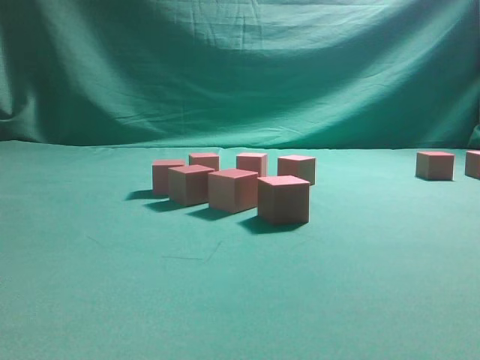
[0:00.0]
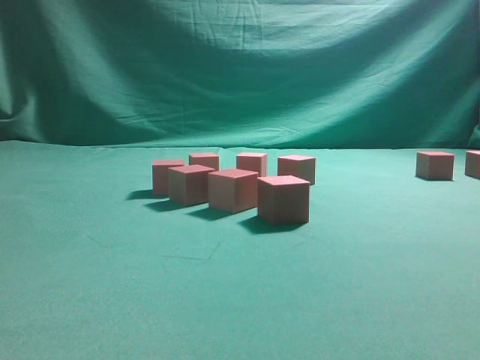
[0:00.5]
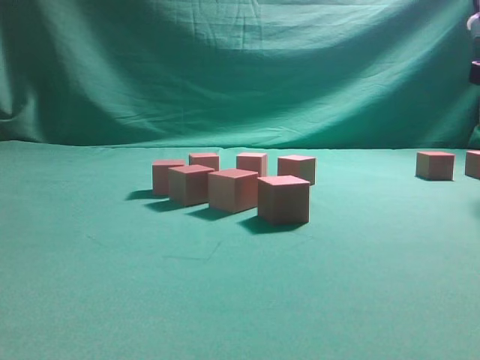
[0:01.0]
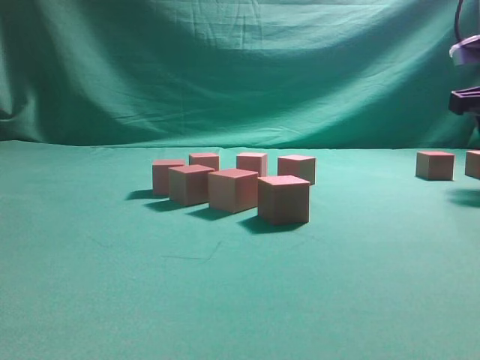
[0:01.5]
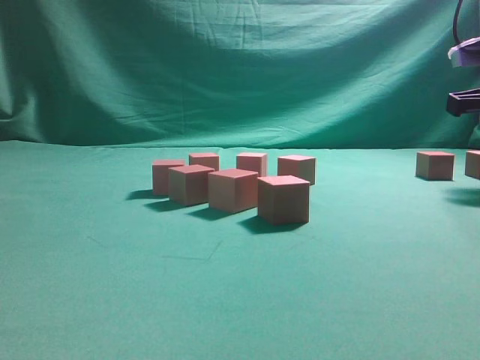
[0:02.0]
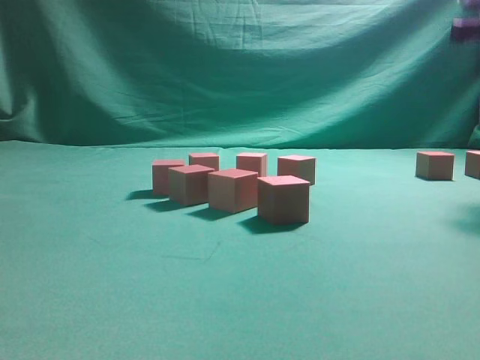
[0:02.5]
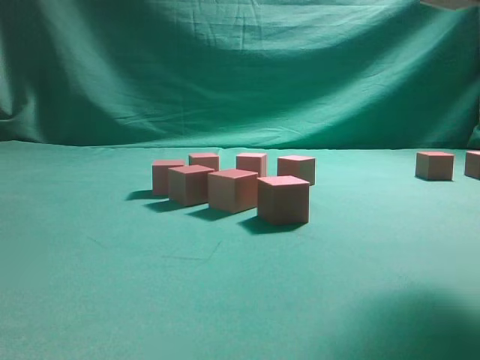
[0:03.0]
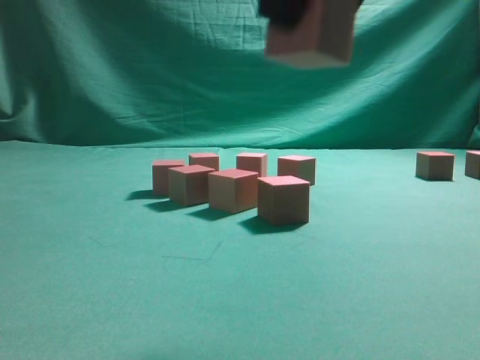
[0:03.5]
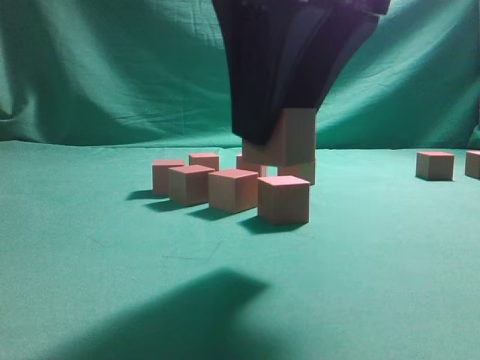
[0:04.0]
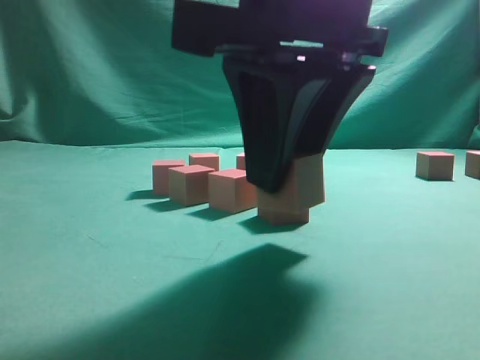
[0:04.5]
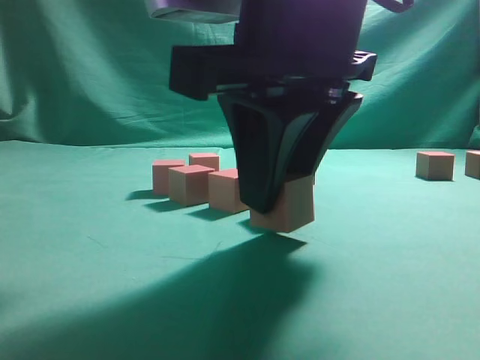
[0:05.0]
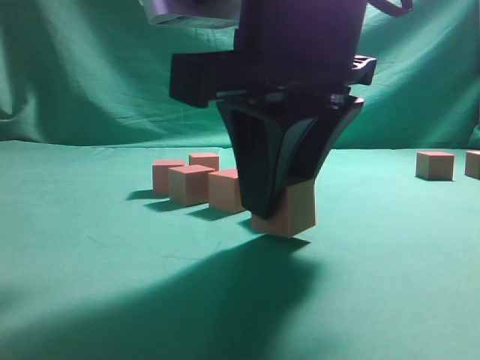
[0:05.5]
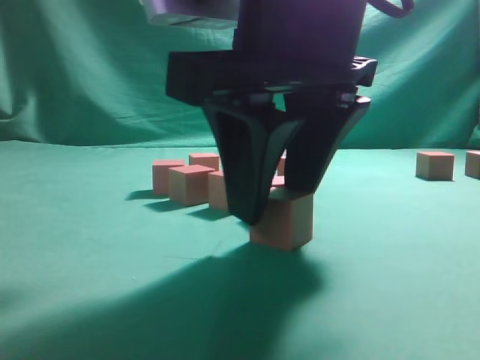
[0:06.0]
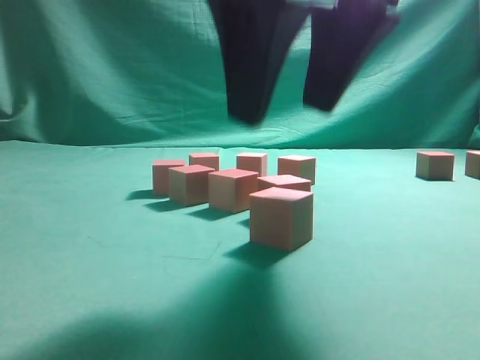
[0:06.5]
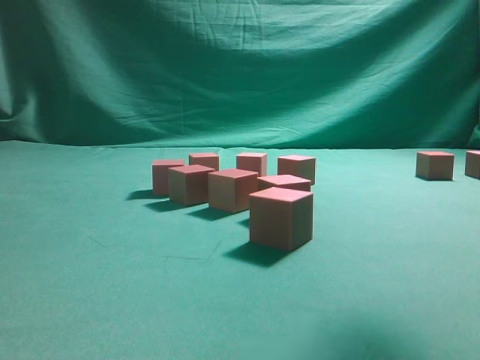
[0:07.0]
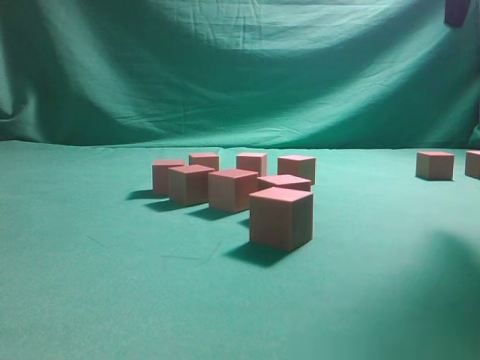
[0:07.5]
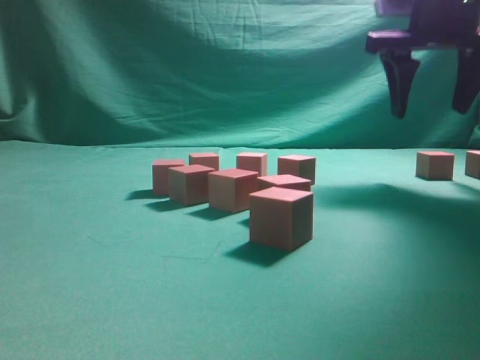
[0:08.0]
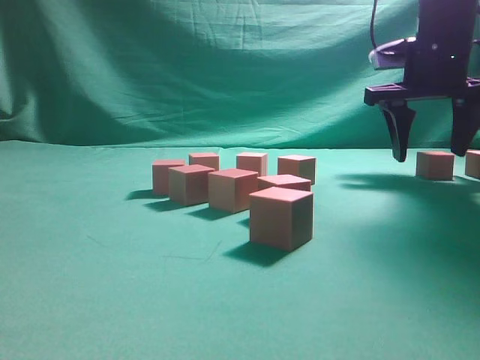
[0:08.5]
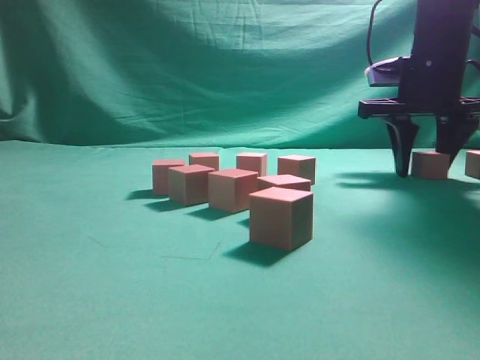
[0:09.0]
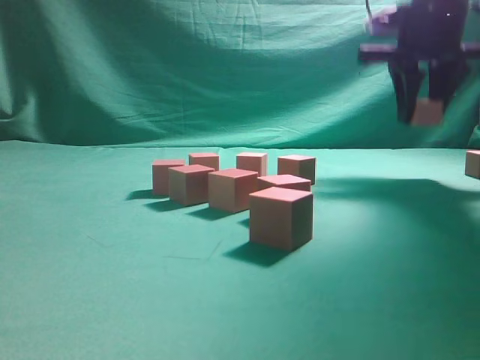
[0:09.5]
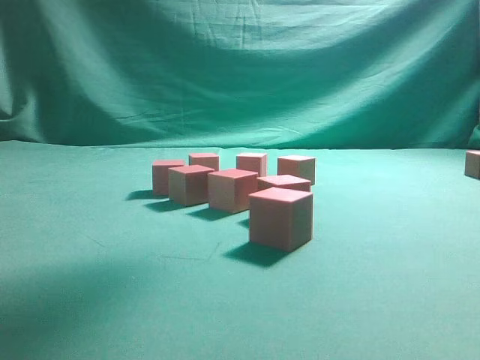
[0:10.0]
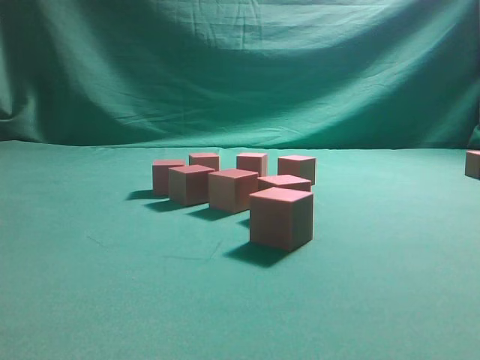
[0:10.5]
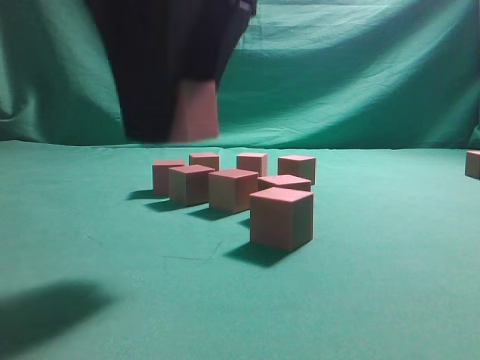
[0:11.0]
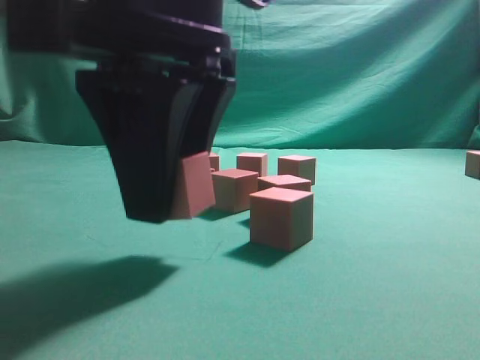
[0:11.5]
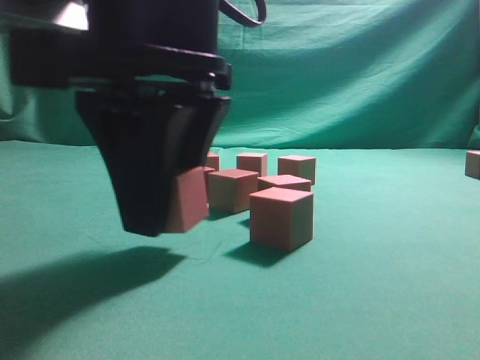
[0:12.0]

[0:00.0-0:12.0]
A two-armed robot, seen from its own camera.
Task of the whole recording: pick up the multiple cubes in two columns one by one and place them in another position on the table.
Step, 0:00.0 to 0:02.0: Pick up the block on the table.
Step, 0:02.5 to 0:06.0: Place the block at the correct position to assemble the letter S.
Step, 0:06.5 to 0:09.0: Pick up the block on the table.
0:00.0 to 0:02.0: The right gripper heads downward and forward, covering about 20 cm.
0:02.0 to 0:04.0: The right gripper is displaced to the left and backward by some 30 cm.
0:04.0 to 0:06.0: The right gripper ends up approximately 5 cm from where it was.
0:06.0 to 0:08.0: The right gripper shifts about 25 cm forward and to the right.
0:08.0 to 0:10.0: The right gripper travels upward, to the left and backward by roughly 20 cm, and closes up.
0:10.0 to 0:12.0: The right gripper shifts about 25 cm downward, to the left and backward.

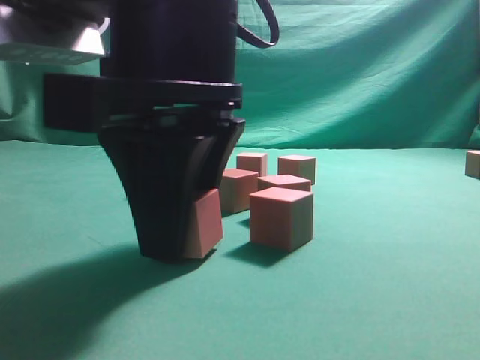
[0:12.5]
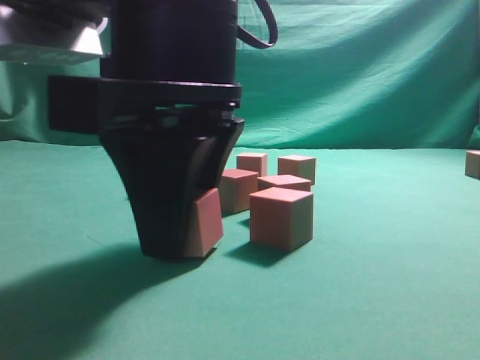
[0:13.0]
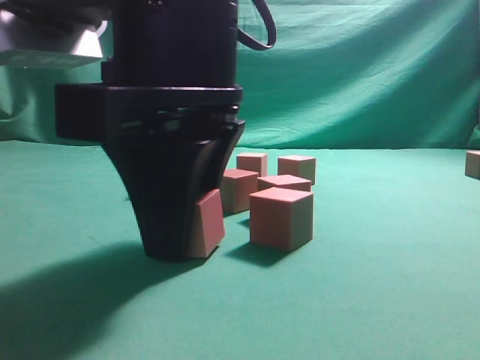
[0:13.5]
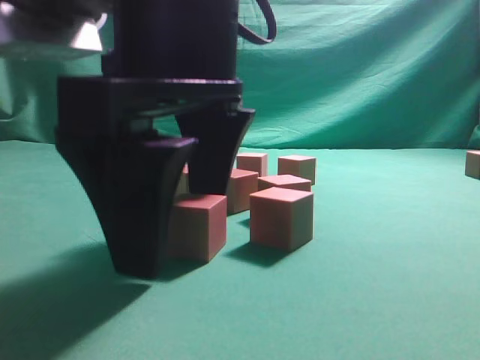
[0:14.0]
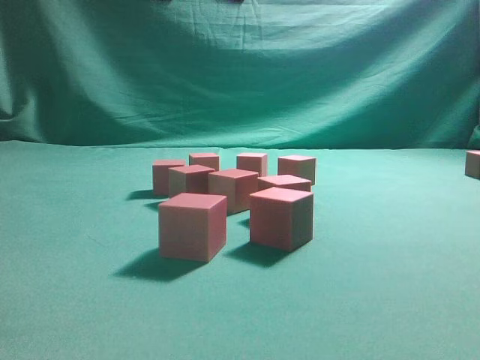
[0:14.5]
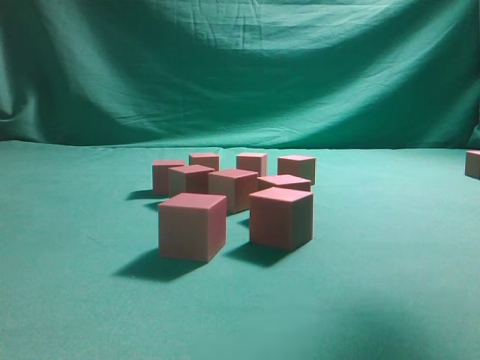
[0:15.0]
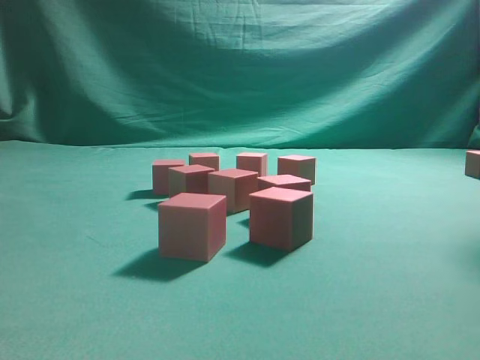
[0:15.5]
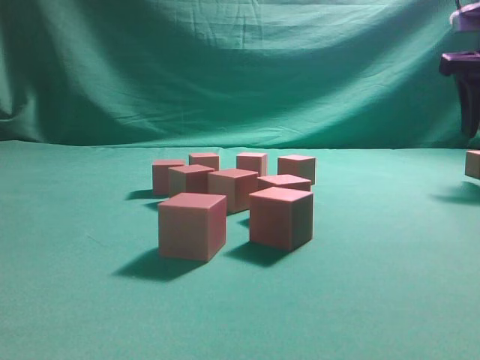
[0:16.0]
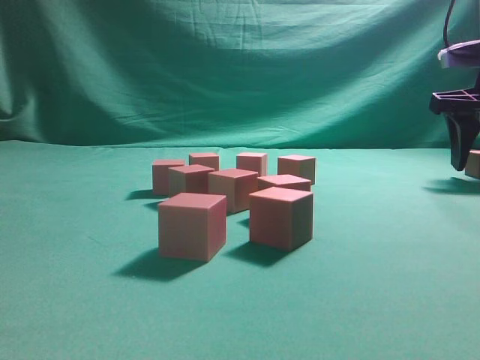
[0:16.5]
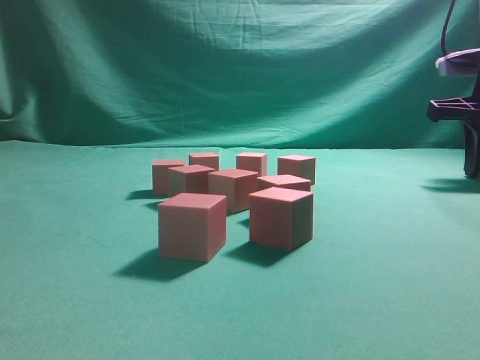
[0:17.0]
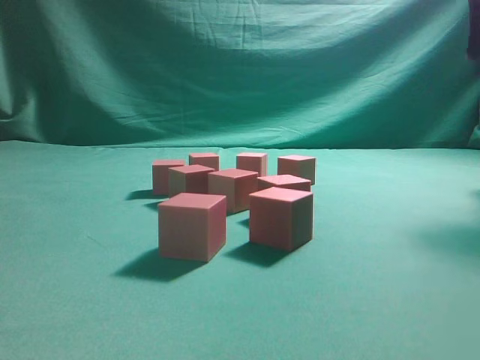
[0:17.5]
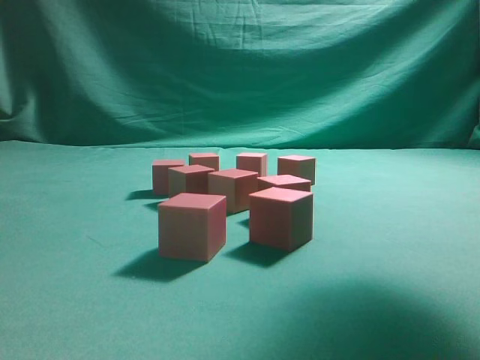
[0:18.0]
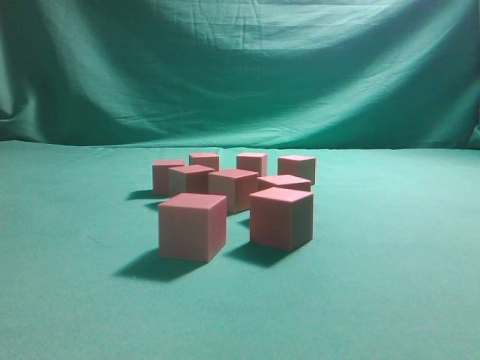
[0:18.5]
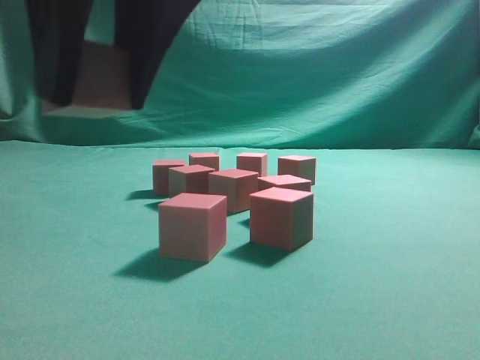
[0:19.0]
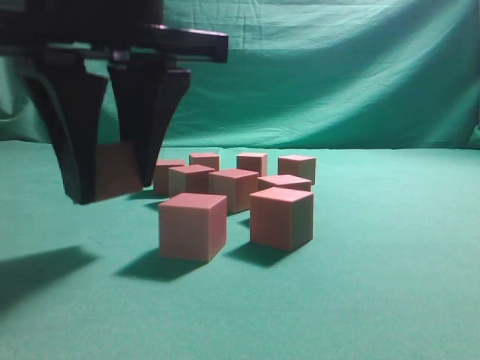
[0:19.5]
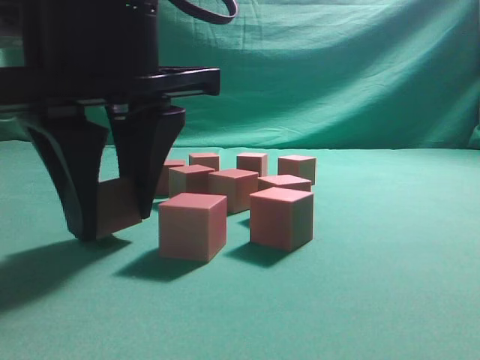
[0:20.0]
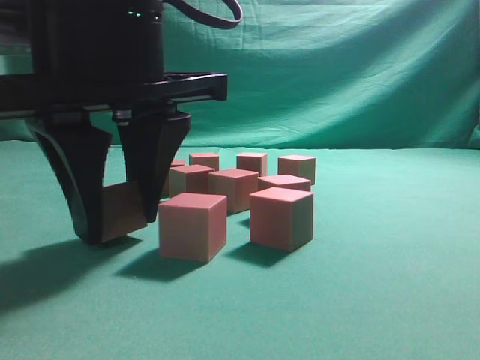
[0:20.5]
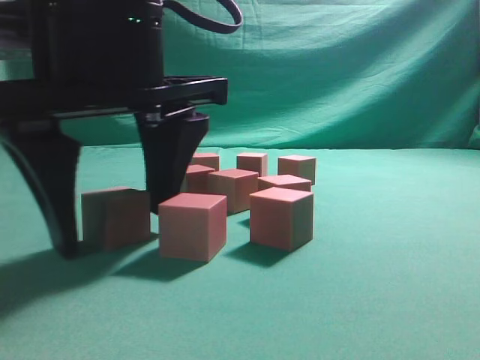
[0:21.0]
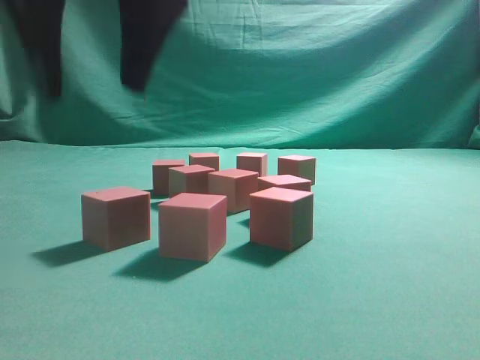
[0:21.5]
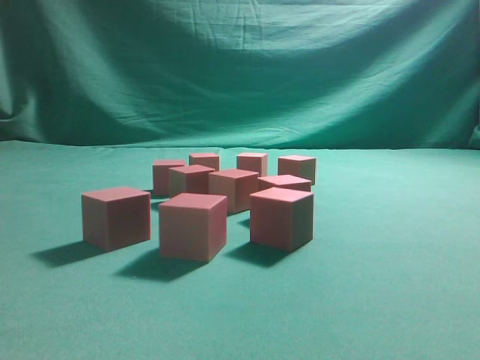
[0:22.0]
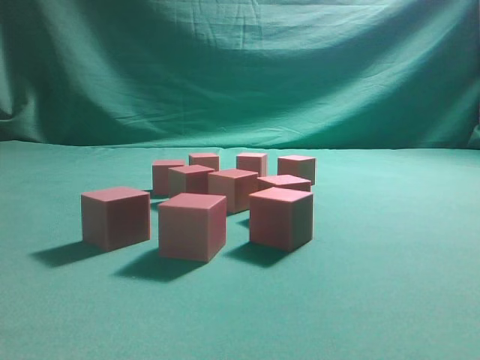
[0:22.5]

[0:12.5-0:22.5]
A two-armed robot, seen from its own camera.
Task of the whole recording: pick up the multiple cubes in two columns one by one and place them in another position on the table.
Step, 0:14.5 to 0:17.0: Pick up the block on the table.
Step, 0:17.5 to 0:21.0: Place the block at the correct position to assemble the letter S.
0:12.5 to 0:14.5: The right gripper goes about 15 cm upward, and opens.
0:14.5 to 0:16.5: The right gripper shifts roughly 40 cm to the right, forward and downward.
0:16.5 to 0:18.5: The right gripper heads backward, to the left and upward, covering about 35 cm, and closes up.
0:18.5 to 0:20.5: The right gripper is displaced downward and to the left by some 20 cm.
0:20.5 to 0:22.5: The right gripper heads upward and to the right, covering approximately 35 cm, and closes up.
